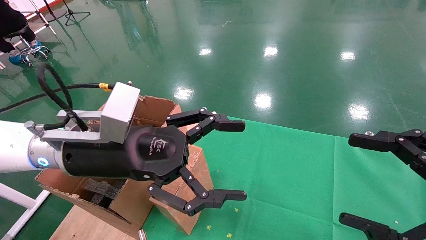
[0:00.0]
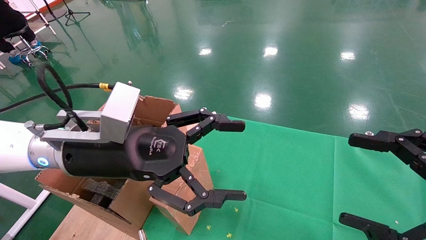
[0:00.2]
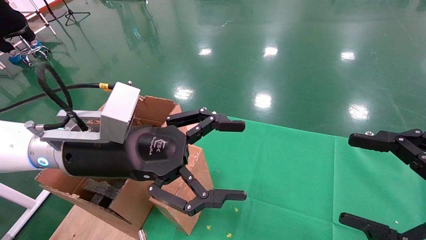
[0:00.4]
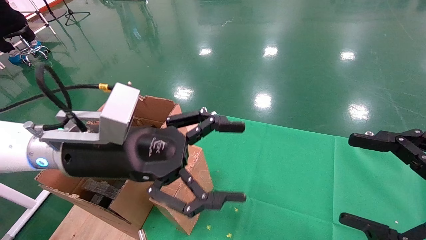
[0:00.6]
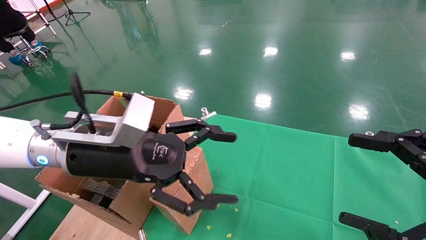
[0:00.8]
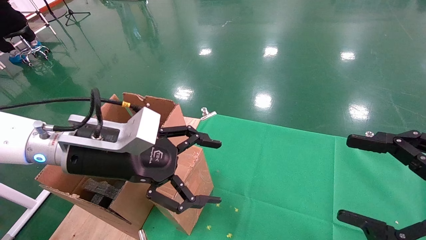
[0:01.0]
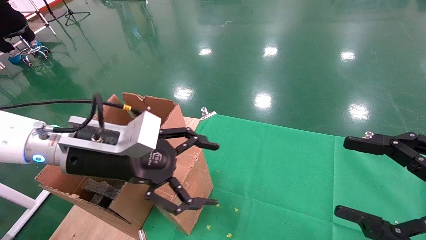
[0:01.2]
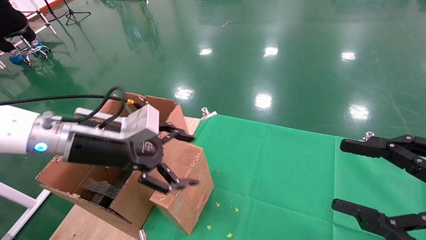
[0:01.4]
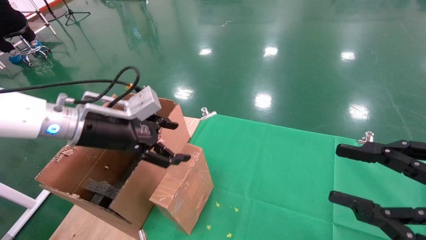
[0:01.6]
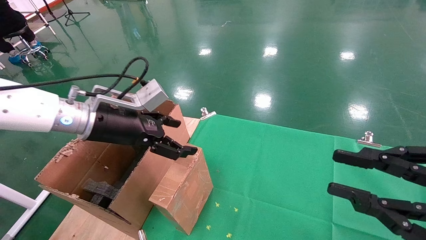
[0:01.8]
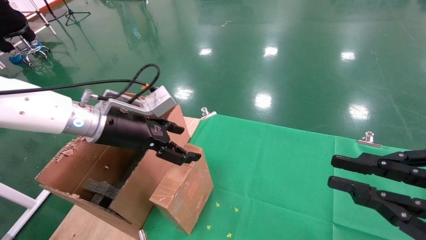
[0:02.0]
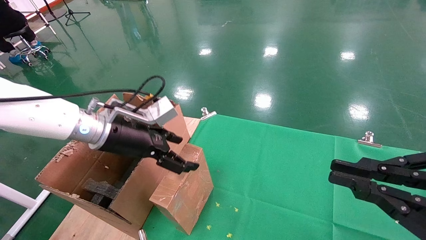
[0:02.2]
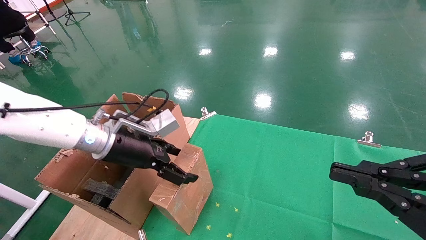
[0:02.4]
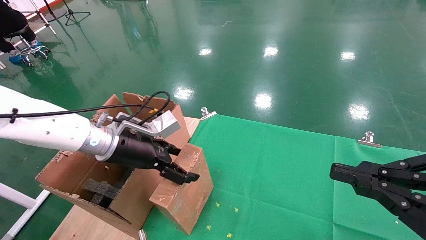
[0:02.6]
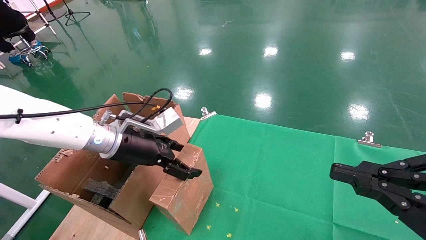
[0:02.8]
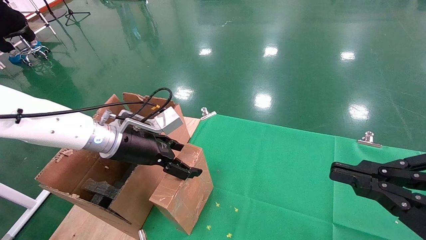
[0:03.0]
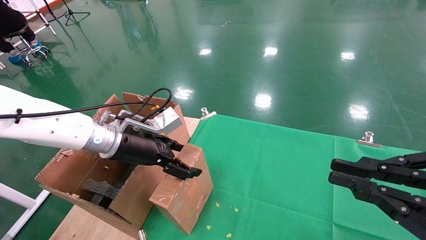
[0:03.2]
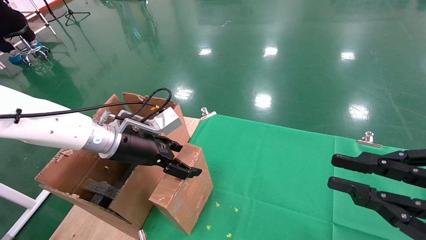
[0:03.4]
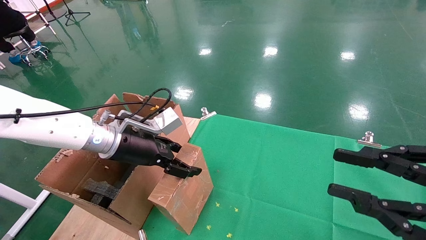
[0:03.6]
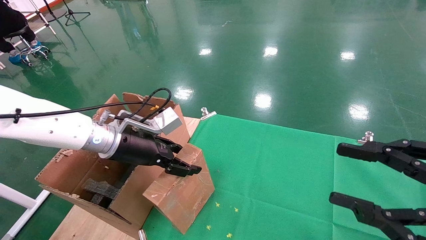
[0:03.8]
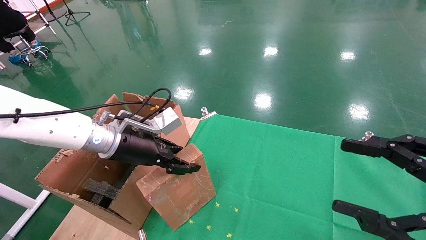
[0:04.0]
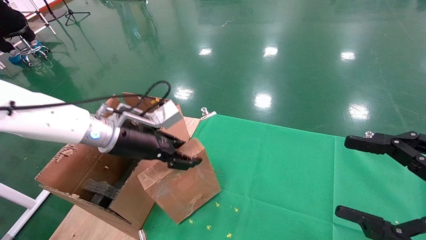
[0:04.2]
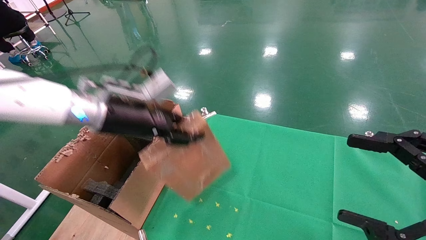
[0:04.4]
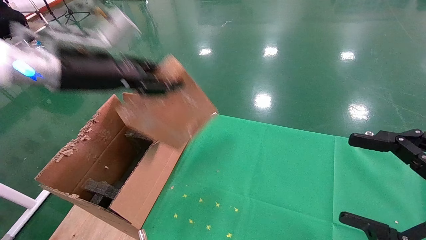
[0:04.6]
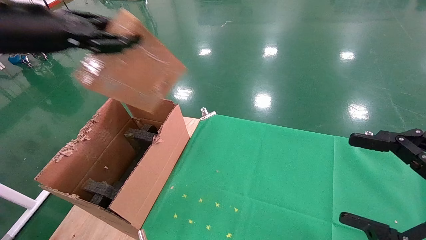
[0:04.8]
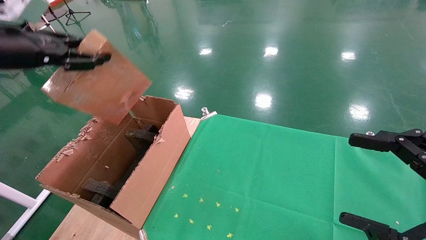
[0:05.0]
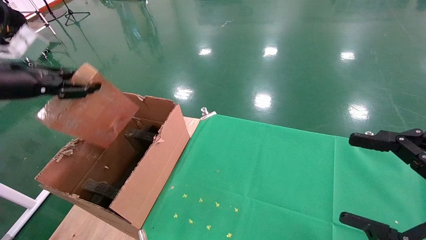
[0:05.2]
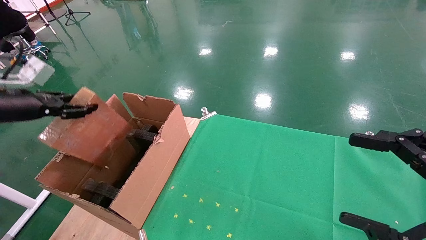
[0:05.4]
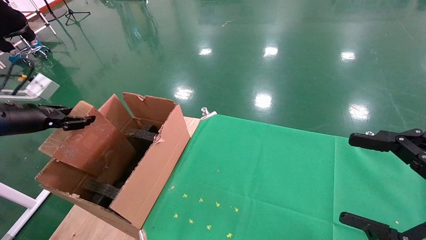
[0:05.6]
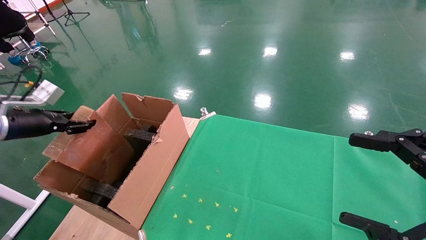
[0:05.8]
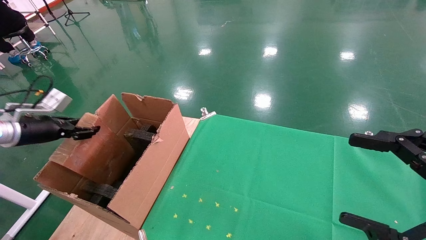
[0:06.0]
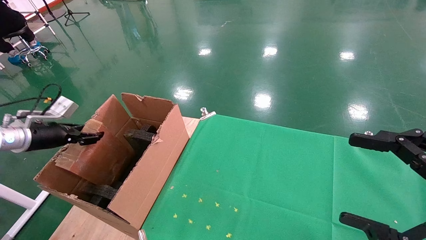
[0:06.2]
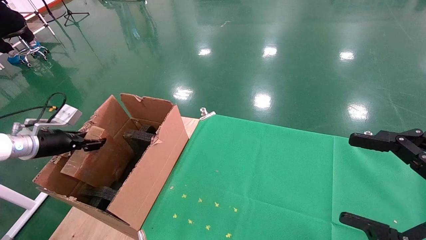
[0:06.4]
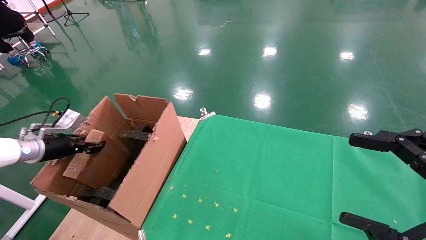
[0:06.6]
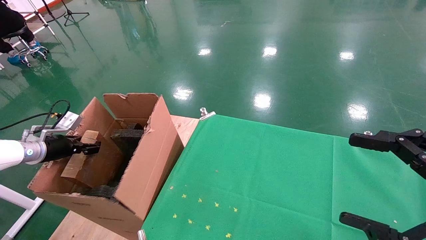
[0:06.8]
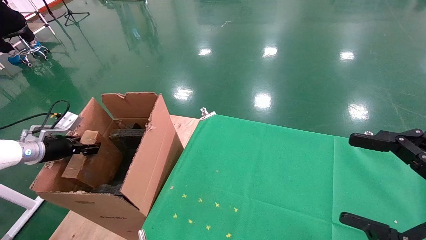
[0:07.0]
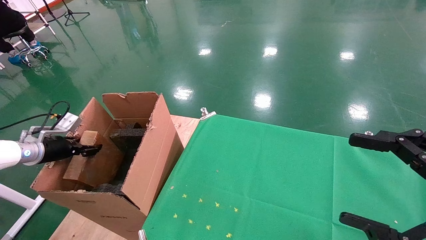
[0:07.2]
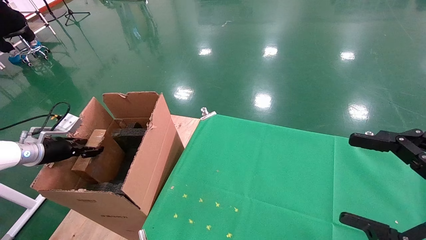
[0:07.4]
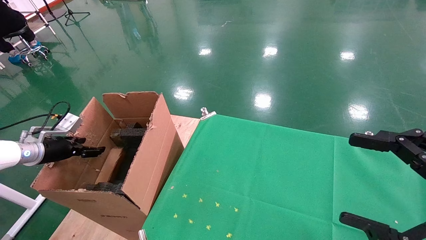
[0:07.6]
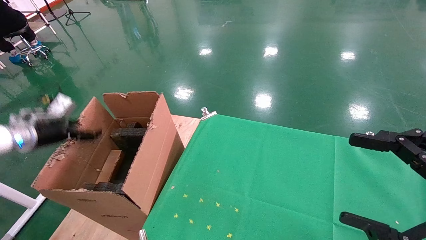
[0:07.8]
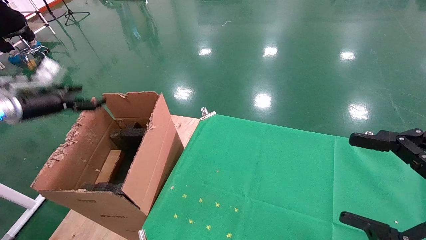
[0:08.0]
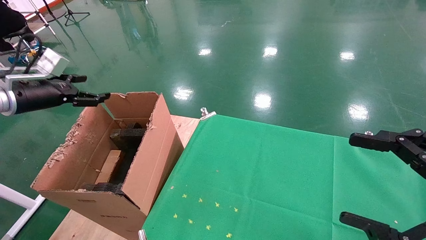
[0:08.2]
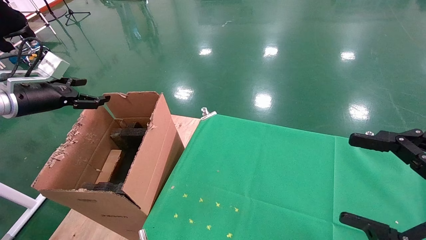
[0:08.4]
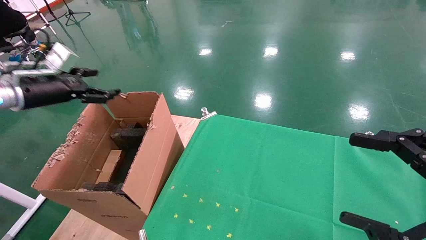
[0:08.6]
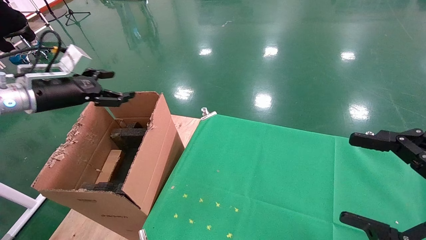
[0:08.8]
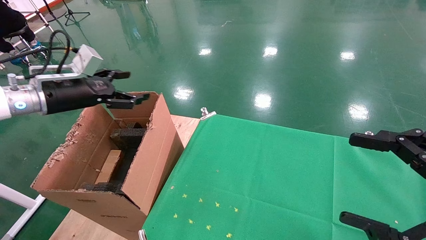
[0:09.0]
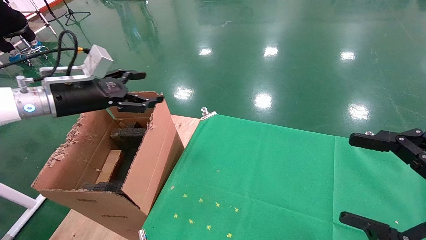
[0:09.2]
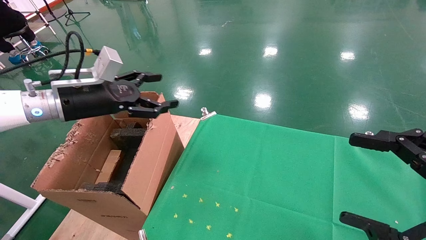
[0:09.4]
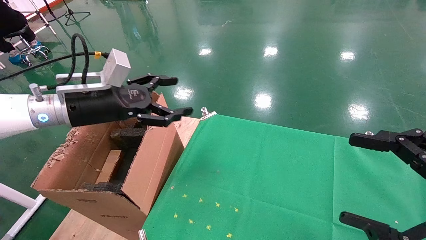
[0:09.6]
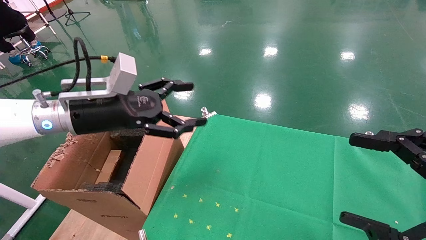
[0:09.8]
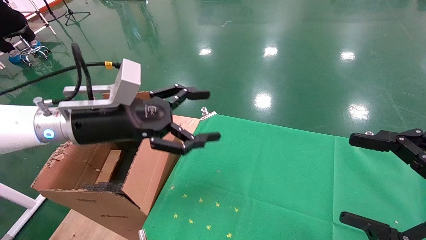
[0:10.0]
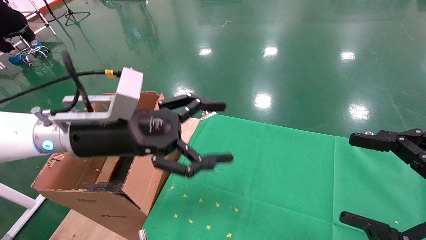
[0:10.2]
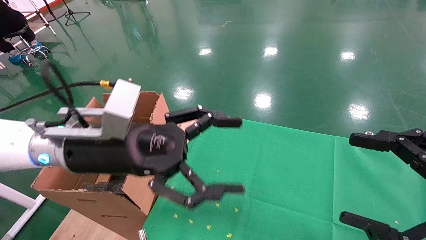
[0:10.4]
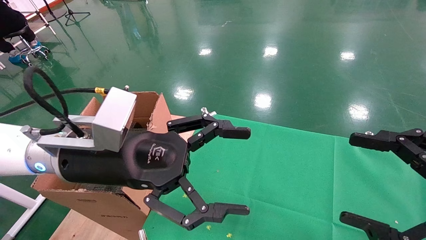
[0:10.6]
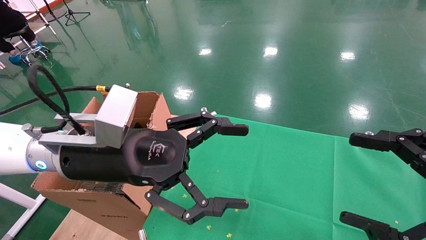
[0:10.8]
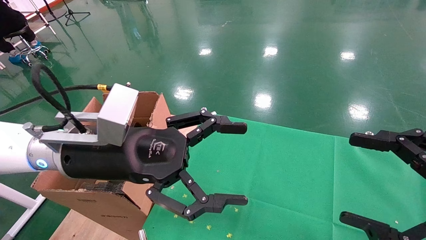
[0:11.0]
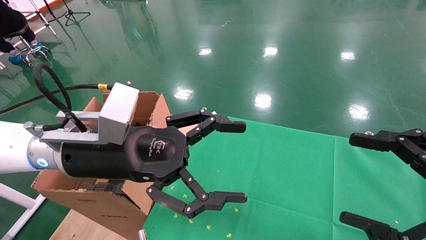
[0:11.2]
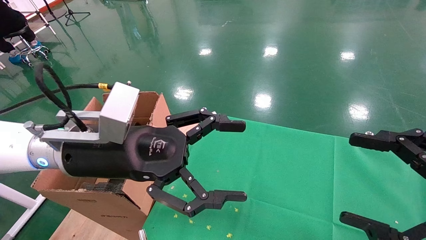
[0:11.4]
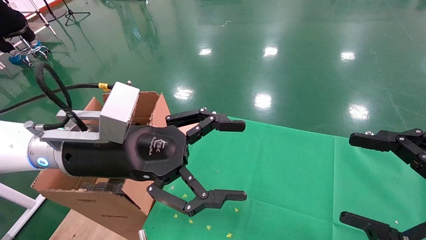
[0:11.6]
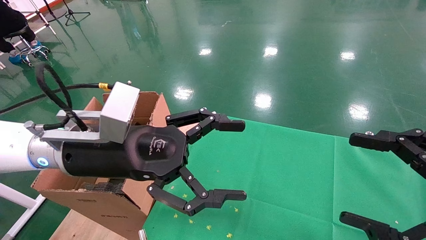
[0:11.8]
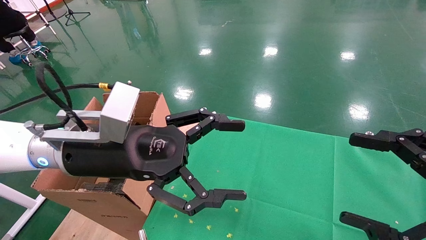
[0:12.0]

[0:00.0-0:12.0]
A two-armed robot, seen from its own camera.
Task of the whole recording: using a robotic arm to pick up a cardboard box and palace it the carton.
Step, 0:00.8 to 0:03.8: Pick up the mouse and the power cord paper box.
Step, 0:04.0 to 0:07.8: Place the mouse and the power cord paper box into the container.
0:00.0 to 0:01.6: The right gripper closes its fingers. The left gripper heads to the left and forward, covering roughly 10 cm.
0:01.6 to 0:03.0: The left gripper ends up approximately 5 cm from where it was, while the right gripper closes.
0:03.0 to 0:04.4: The left gripper shifts roughly 10 cm upward, and closes; the right gripper opens up.
0:04.4 to 0:06.0: The left gripper shifts roughly 25 cm to the left.
0:06.0 to 0:07.6: The left gripper goes roughly 5 cm downward, and opens up.
0:07.6 to 0:09.0: The left gripper shifts approximately 20 cm upward and to the right, and opens its fingers.
0:09.0 to 0:10.4: The left gripper travels to the right and backward by some 20 cm.
0:10.4 to 0:12.0: The grippers stay close to where they were, moving slightly.

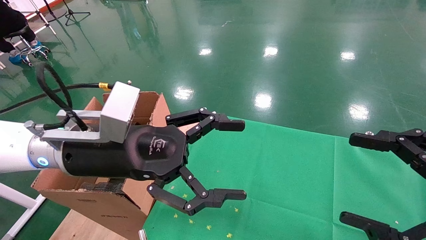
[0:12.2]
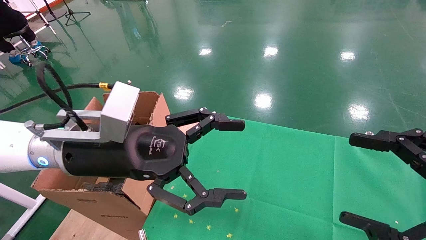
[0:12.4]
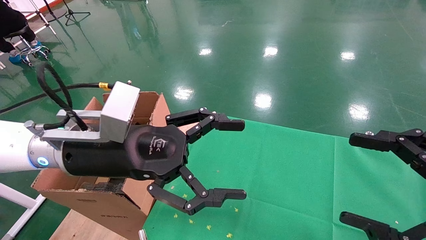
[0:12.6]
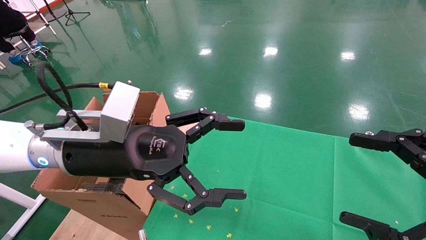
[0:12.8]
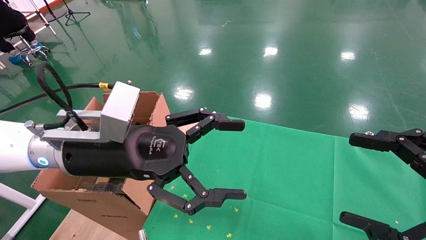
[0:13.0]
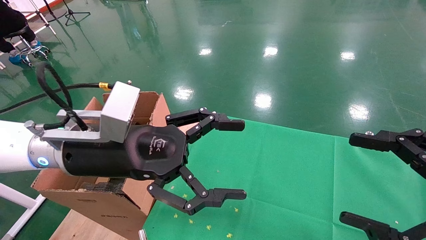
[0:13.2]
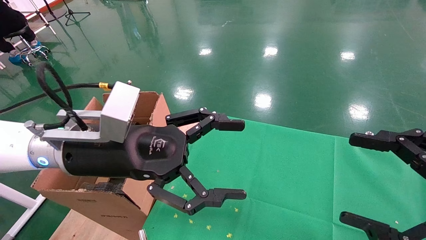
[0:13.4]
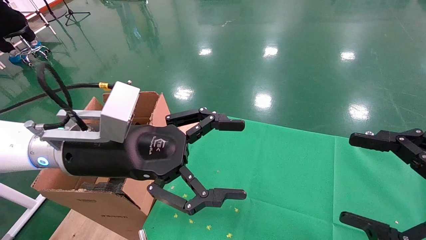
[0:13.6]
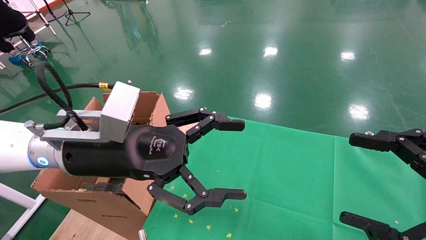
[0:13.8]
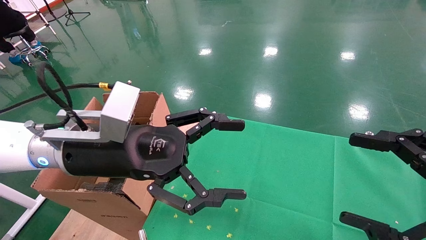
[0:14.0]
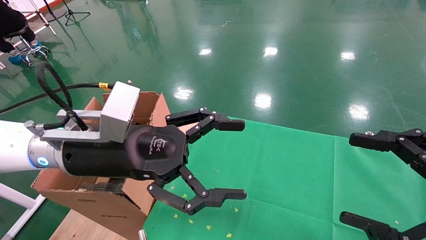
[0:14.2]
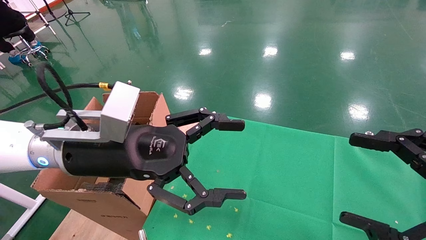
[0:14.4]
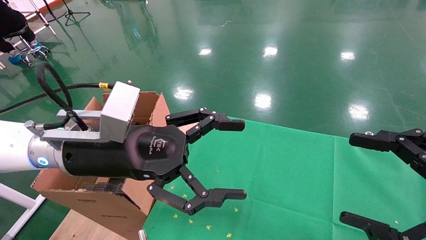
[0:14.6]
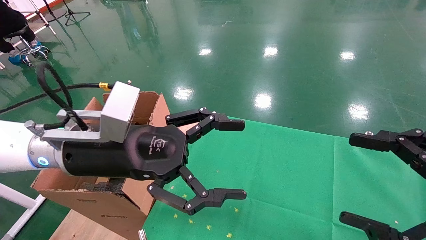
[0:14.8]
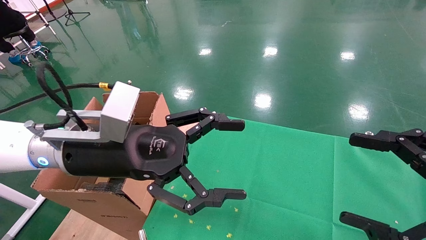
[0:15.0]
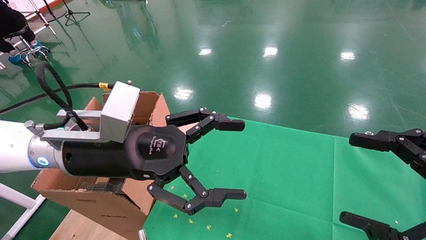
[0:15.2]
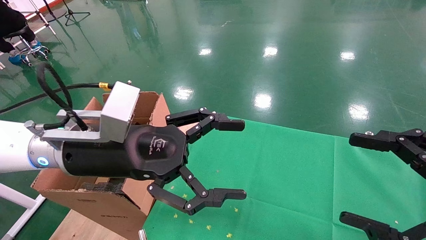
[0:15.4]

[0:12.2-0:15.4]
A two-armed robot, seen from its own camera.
Task of the whole recording: using a robotic arm to pick up a cardboard box and palace it the carton.
0:12.2 to 0:15.4: Both grippers stay about where they are.
